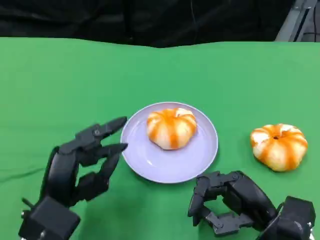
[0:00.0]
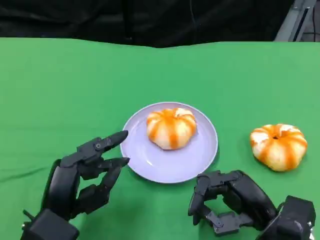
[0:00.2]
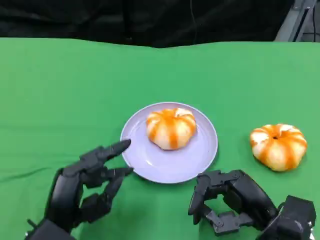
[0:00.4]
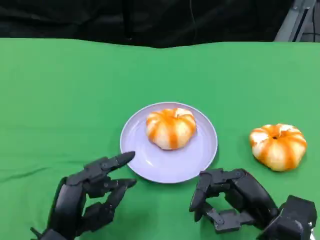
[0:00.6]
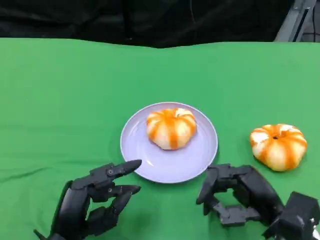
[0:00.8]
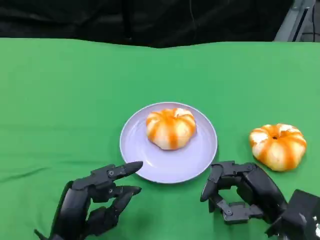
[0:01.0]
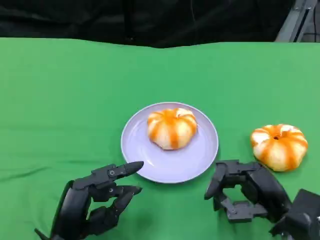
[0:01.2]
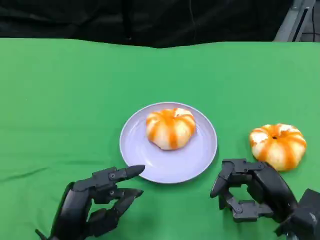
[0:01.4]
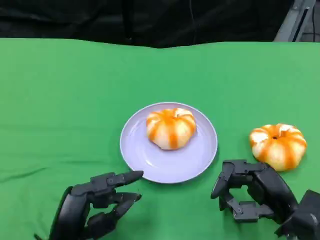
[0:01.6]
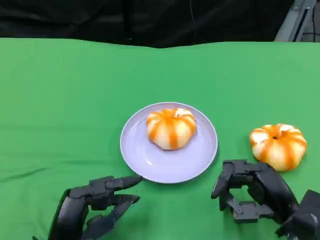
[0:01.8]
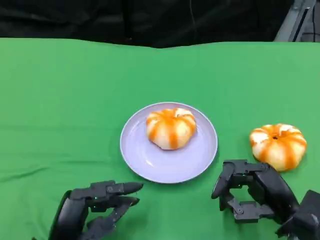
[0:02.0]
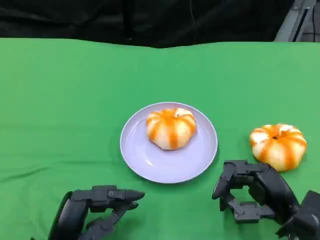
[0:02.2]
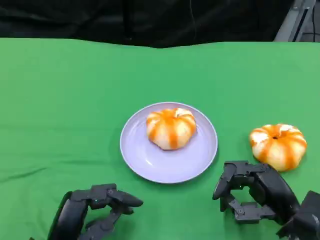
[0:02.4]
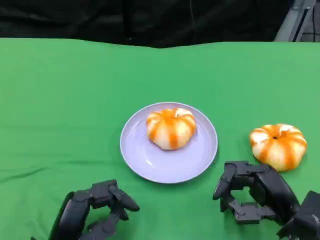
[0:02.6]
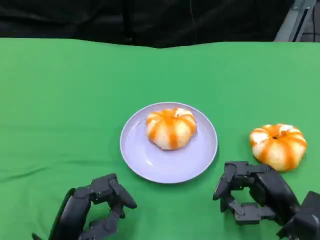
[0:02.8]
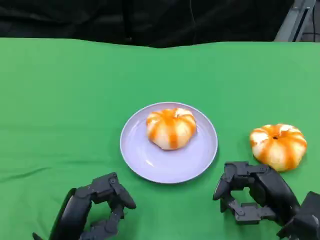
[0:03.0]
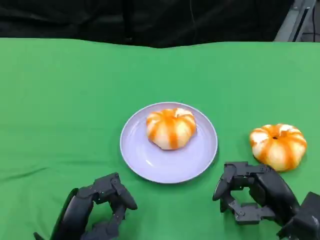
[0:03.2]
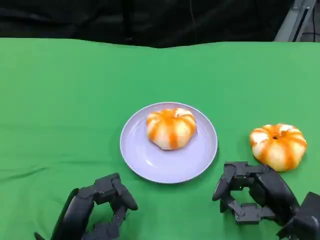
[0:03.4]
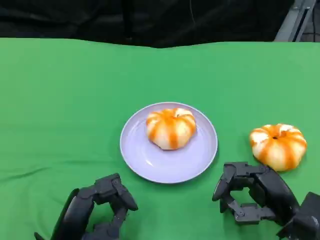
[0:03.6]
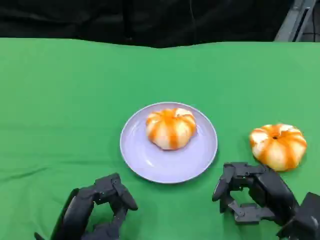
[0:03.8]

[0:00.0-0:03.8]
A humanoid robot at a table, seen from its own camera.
Task of the whole recording: Grasp the bread from the table and place it into the plate.
0:00.0 to 0:02.6: There are only small adjustments of the hands.
0:02.6 to 0:03.8: Both hands stay about where they are.

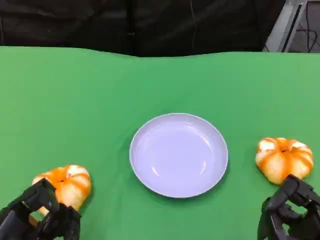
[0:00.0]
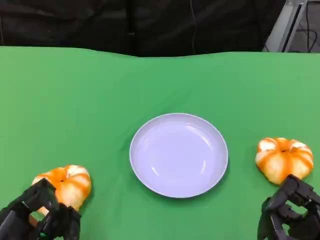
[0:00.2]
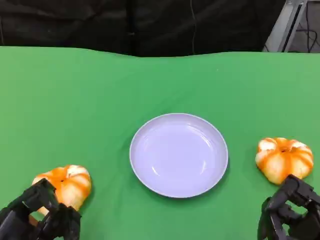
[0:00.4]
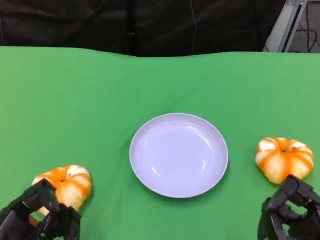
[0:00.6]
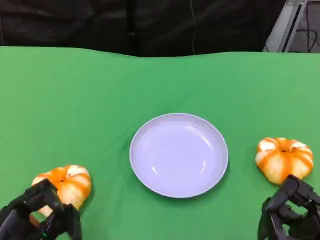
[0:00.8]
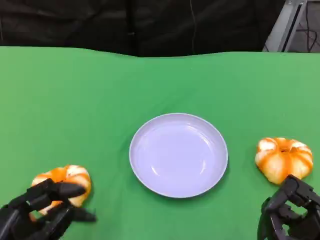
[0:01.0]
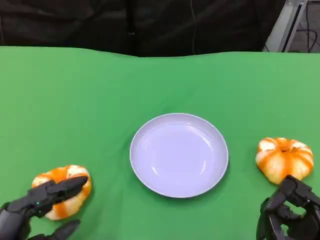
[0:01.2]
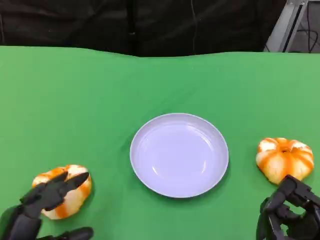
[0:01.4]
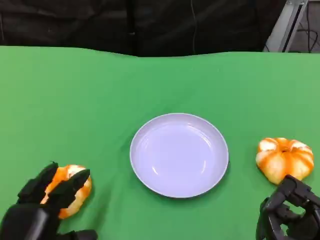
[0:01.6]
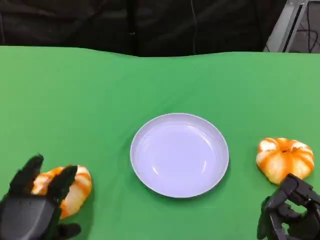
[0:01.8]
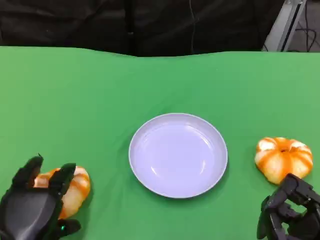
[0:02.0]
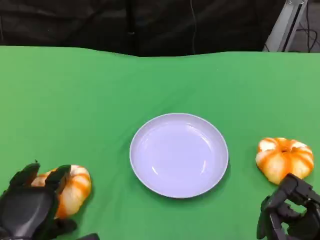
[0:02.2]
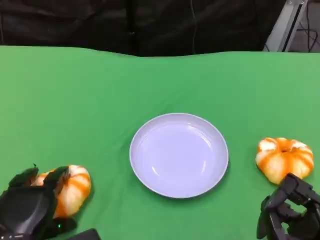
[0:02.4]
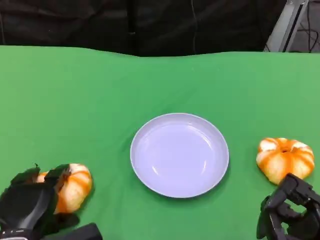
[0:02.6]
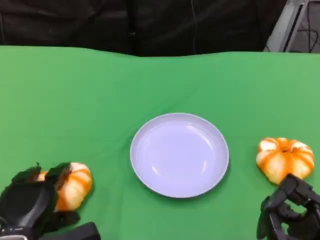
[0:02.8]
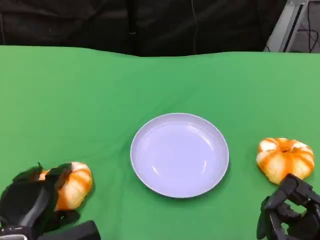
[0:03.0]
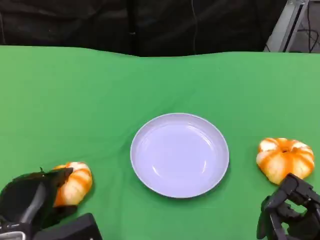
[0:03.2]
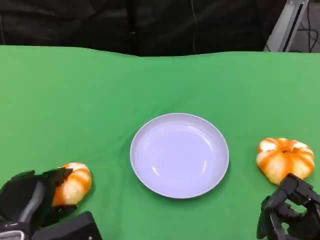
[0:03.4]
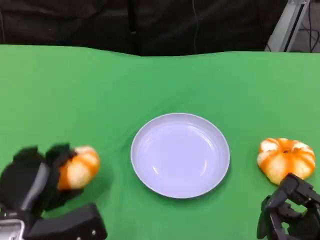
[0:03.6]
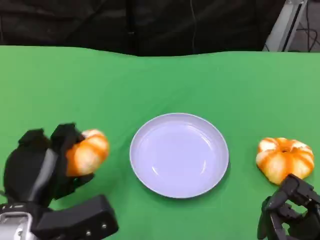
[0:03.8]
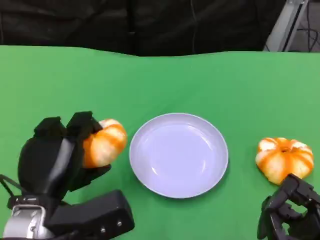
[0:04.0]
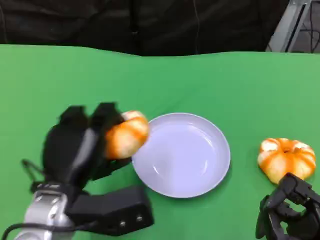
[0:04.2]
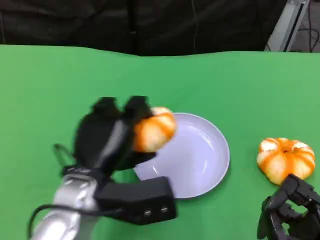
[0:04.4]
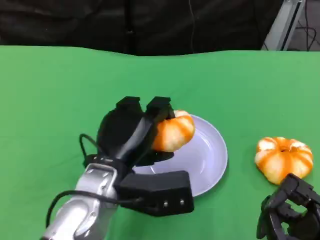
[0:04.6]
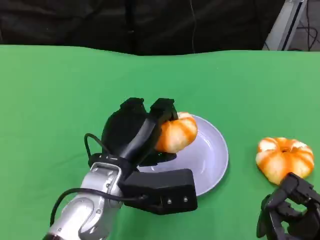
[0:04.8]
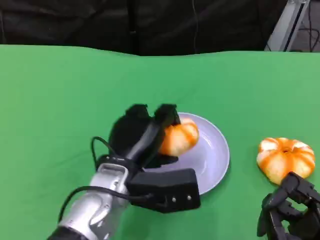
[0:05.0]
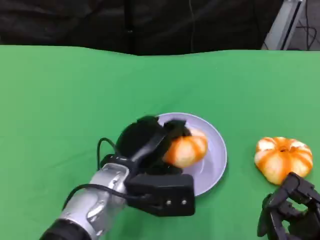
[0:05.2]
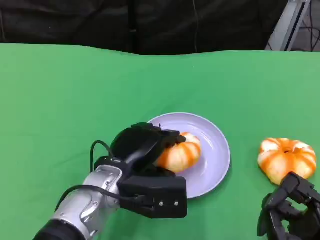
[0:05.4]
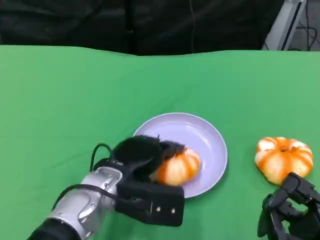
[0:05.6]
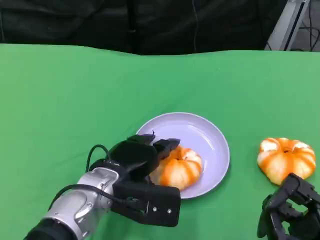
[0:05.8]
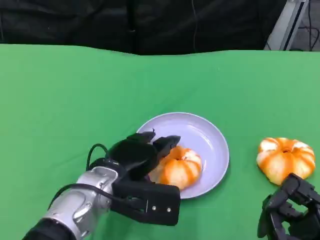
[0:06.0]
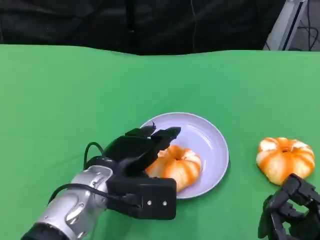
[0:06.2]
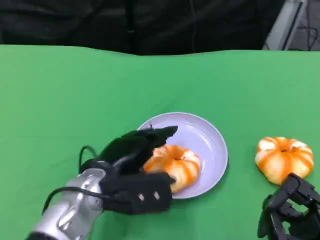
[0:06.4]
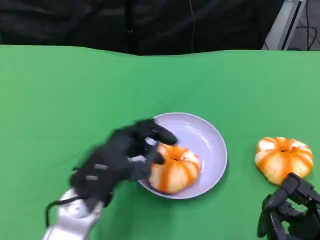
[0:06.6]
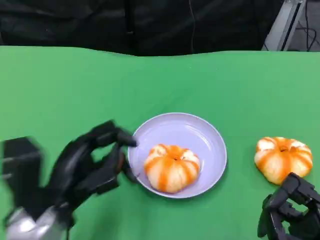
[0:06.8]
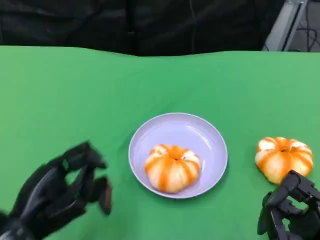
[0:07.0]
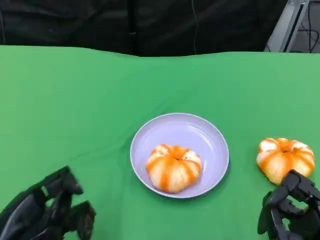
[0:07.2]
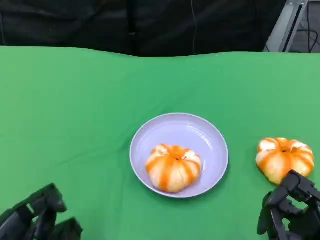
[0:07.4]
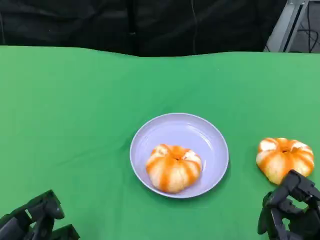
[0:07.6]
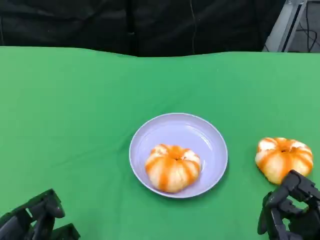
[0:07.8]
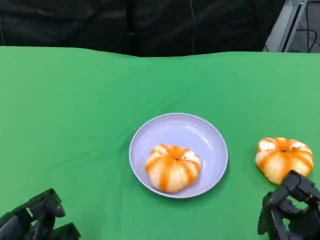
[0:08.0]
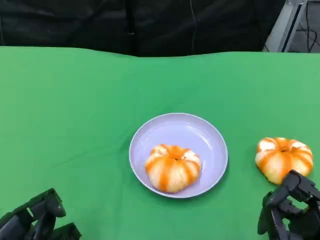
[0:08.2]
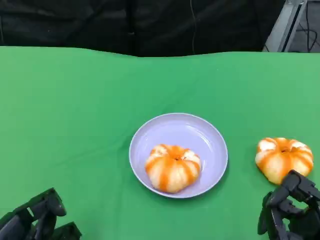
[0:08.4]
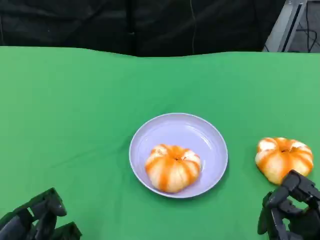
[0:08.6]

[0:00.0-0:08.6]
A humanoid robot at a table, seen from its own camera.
Task of the whole recording: Grasp the bread from the table and place it into the plate.
0:01.4 to 0:02.8: The left hand shifts approximately 5 cm forward.
0:02.8 to 0:04.4: The left hand heads to the right and upward, covering roughly 15 cm.
0:04.4 to 0:05.8: The left hand changes place by approximately 5 cm.
0:05.8 to 0:07.2: The left hand shifts approximately 20 cm to the left and backward.
0:07.2 to 0:08.6: The hands move only a little.

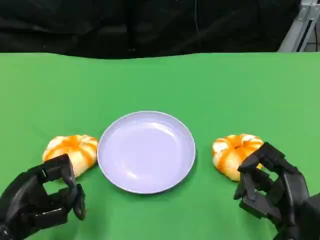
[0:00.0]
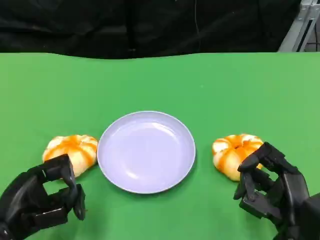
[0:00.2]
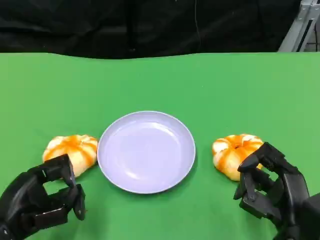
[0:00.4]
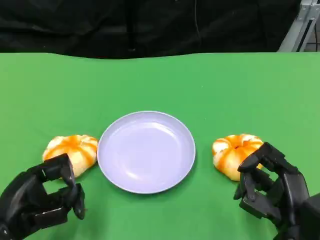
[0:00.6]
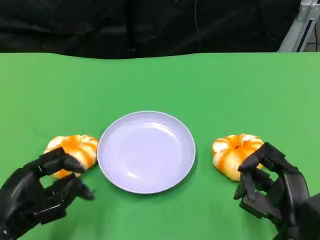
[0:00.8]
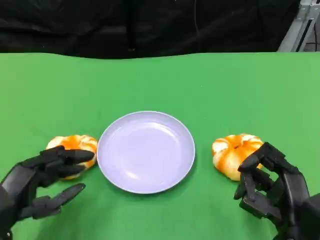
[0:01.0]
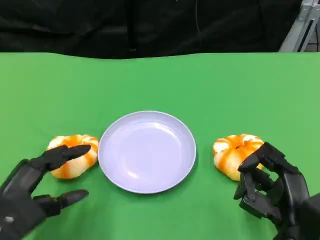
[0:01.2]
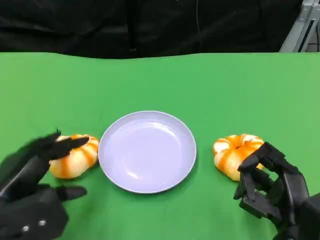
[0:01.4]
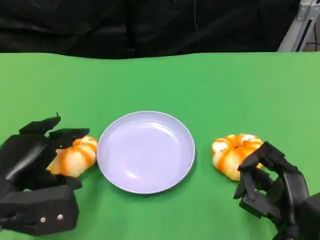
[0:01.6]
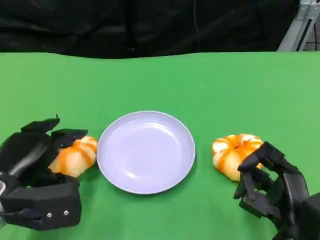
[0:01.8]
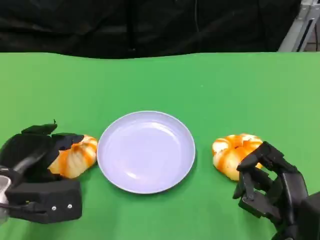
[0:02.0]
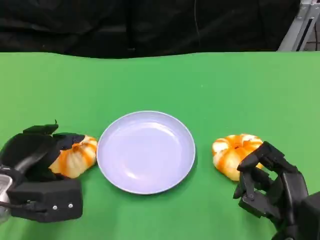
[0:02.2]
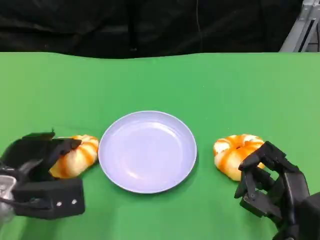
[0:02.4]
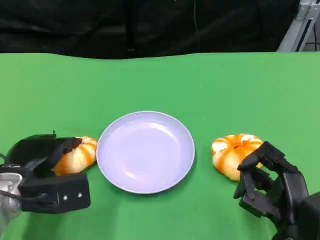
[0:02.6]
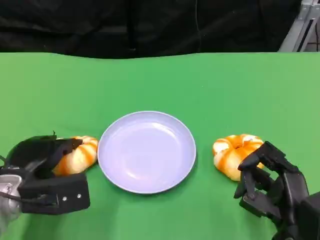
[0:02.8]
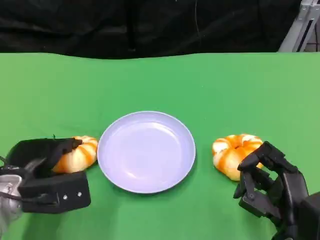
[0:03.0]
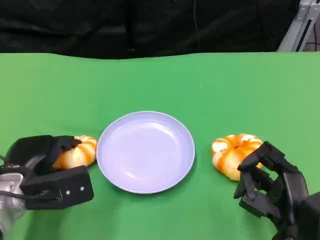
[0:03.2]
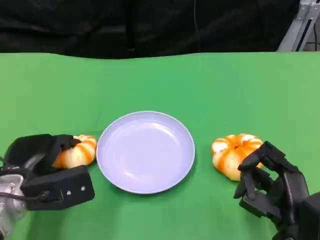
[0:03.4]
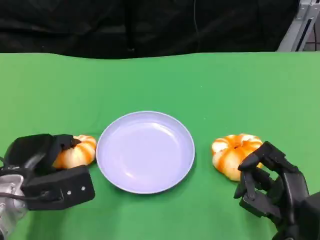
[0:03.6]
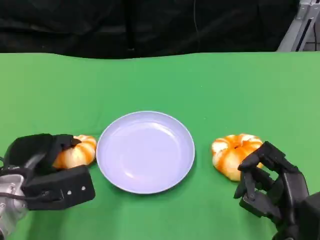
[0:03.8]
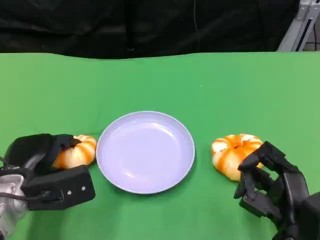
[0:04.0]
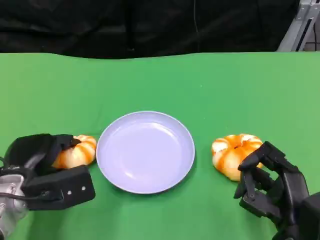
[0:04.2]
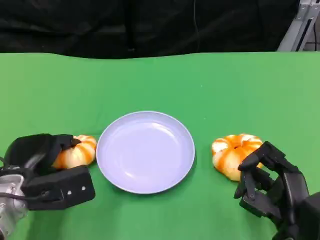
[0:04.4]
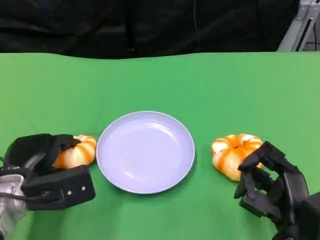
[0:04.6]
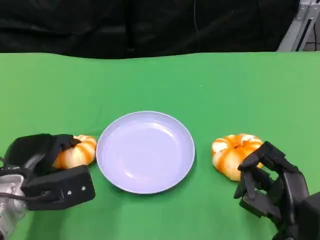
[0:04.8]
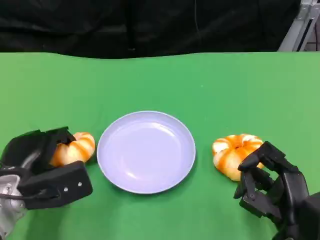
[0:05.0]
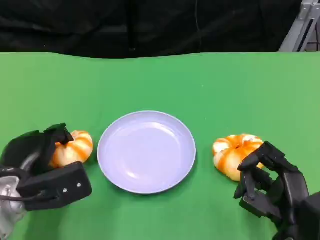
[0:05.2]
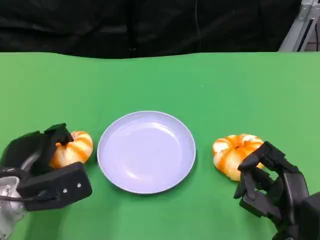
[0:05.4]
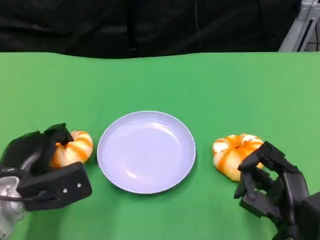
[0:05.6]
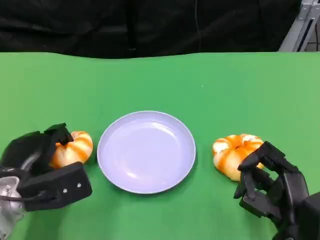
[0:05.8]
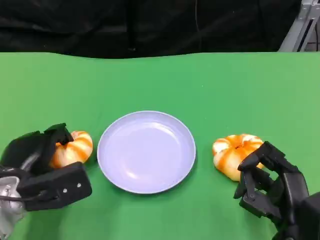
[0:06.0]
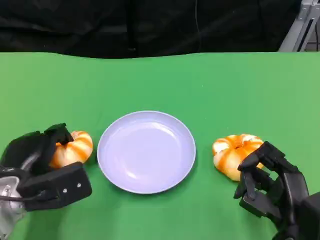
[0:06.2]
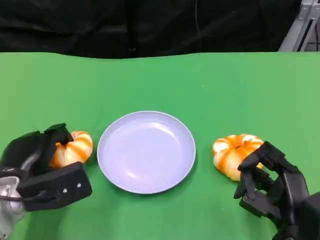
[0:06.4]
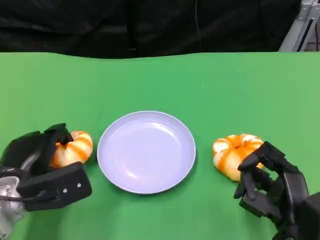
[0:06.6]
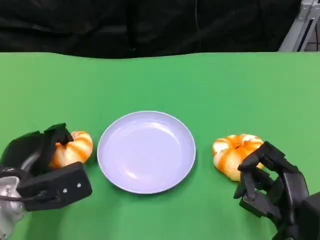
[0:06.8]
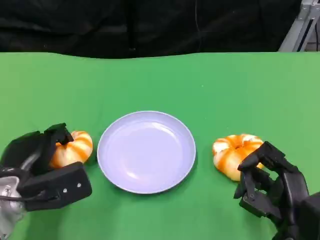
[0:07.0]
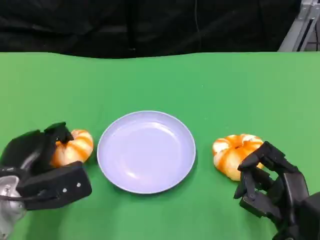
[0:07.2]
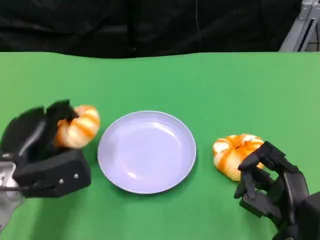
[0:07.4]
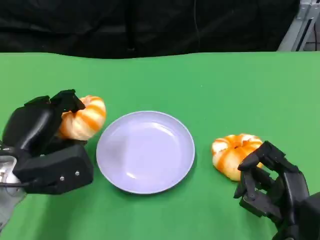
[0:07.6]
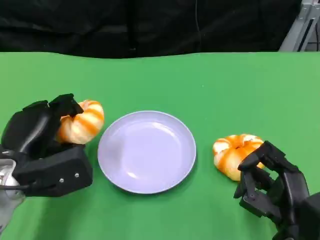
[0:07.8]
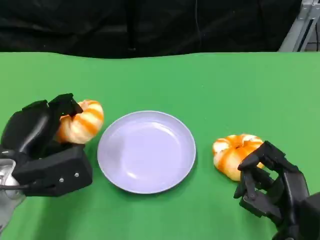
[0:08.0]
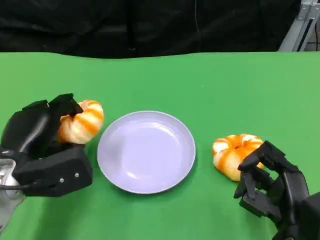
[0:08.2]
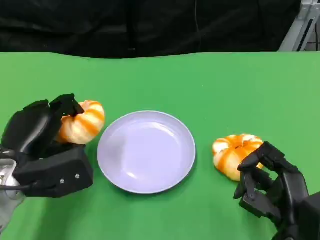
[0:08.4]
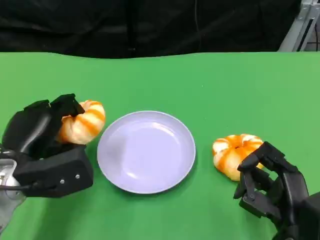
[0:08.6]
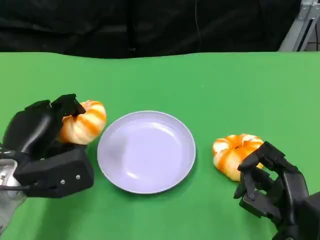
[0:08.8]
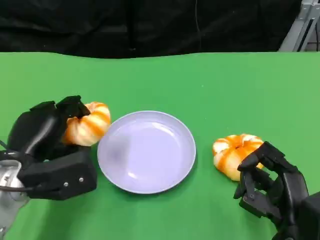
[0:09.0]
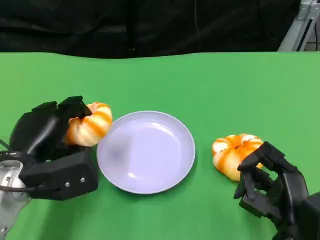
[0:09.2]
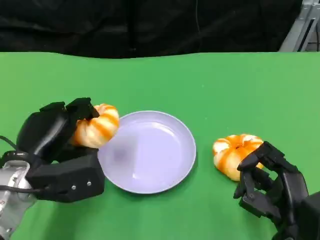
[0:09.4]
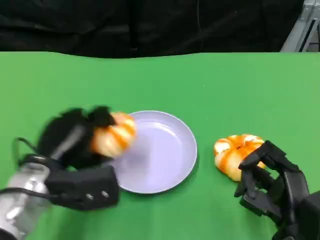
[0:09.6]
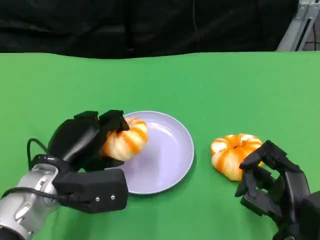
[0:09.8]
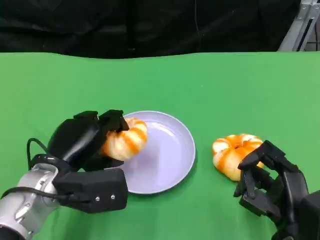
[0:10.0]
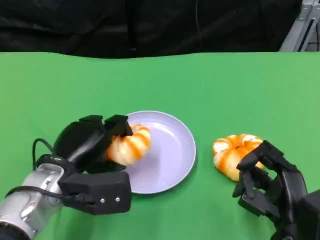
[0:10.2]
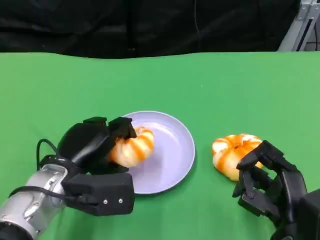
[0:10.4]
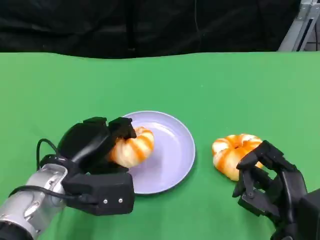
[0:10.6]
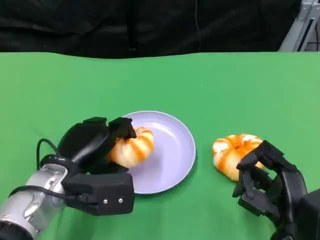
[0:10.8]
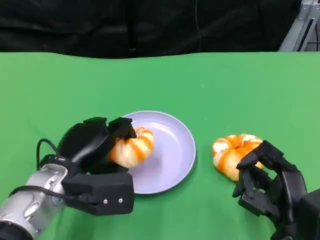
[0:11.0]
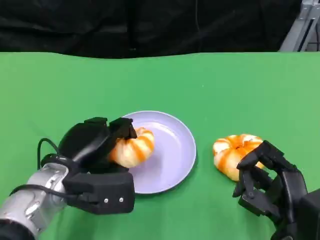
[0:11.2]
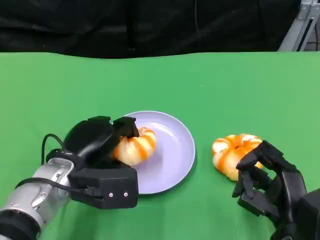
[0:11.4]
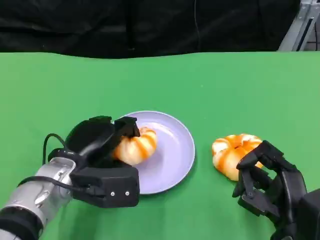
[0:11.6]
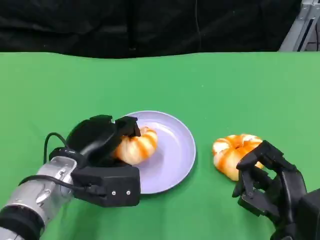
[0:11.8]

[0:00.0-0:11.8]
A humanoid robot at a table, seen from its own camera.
Task of the whole recording: Grasp the bread from the table and place it into the plate.
0:01.4 to 0:03.0: The left hand heads forward and downward, covering roughly 10 cm.
0:03.0 to 0:06.0: The hands make only small movements.
0:06.0 to 0:07.4: The hands move only a little.
0:07.4 to 0:08.8: Both hands stay put.
0:08.8 to 0:10.4: The left hand moves to the right, some 5 cm.
0:10.4 to 0:11.8: The hands make only small movements.
